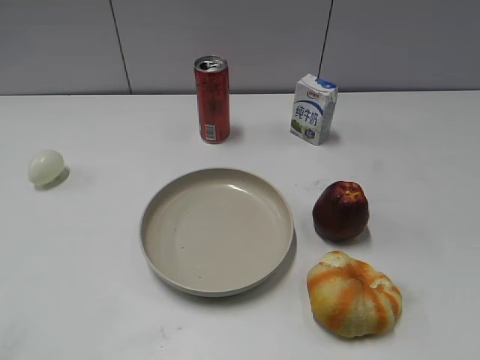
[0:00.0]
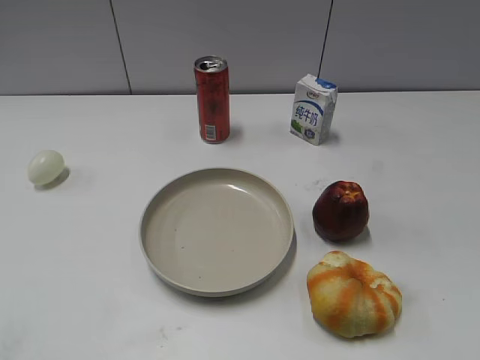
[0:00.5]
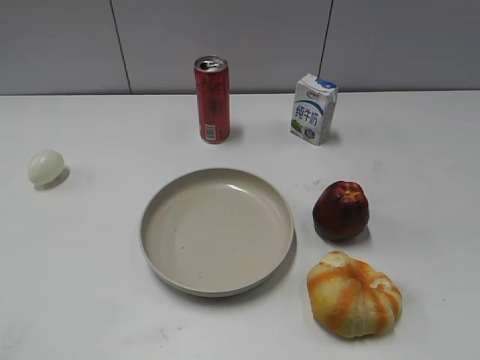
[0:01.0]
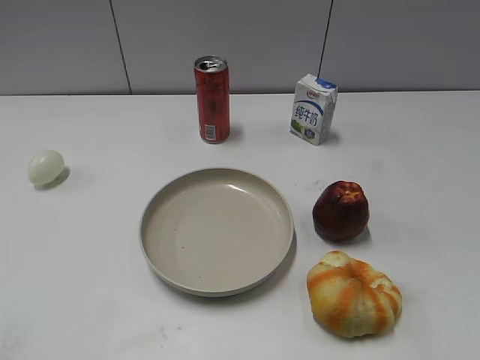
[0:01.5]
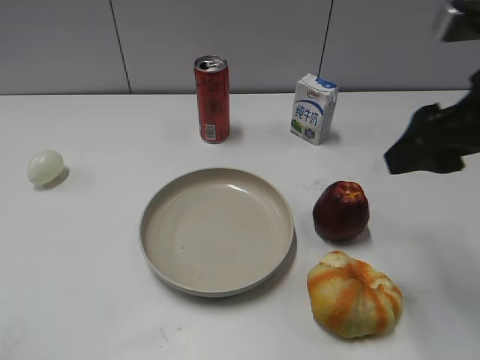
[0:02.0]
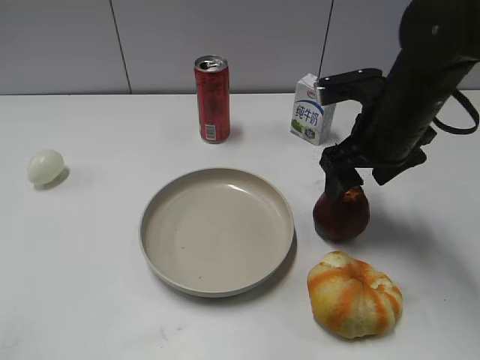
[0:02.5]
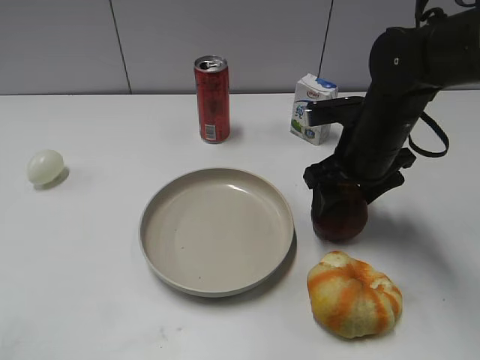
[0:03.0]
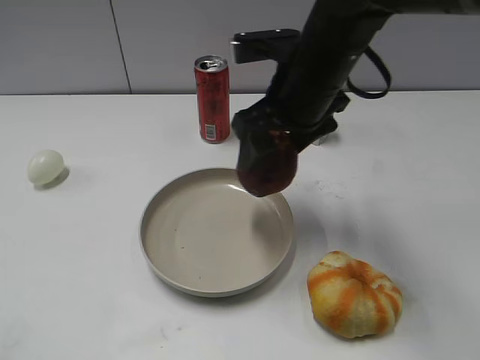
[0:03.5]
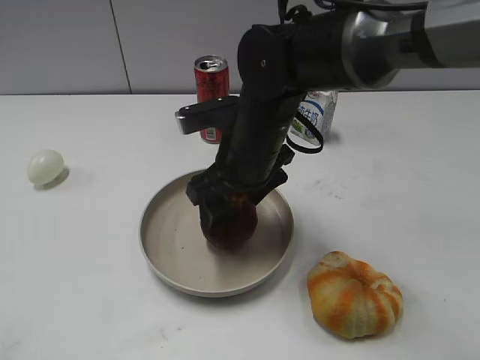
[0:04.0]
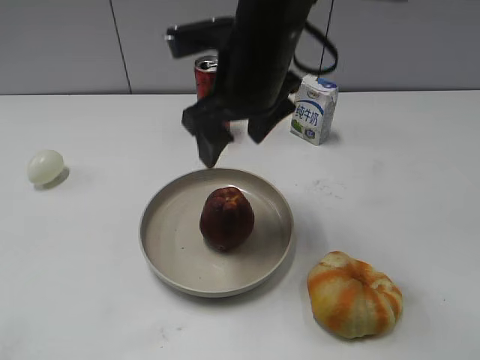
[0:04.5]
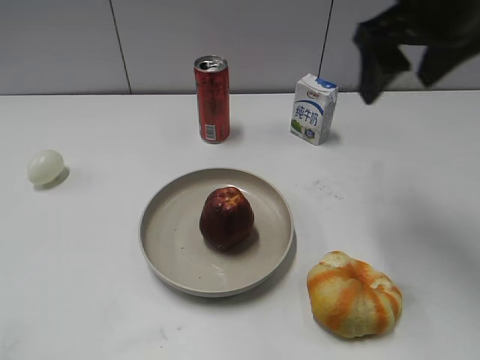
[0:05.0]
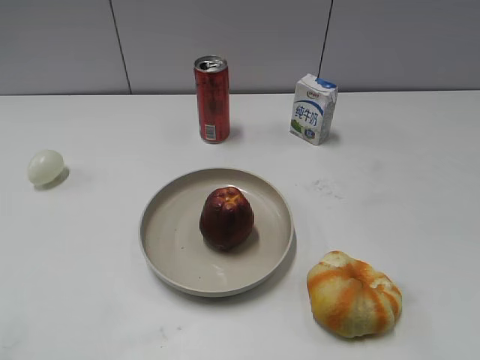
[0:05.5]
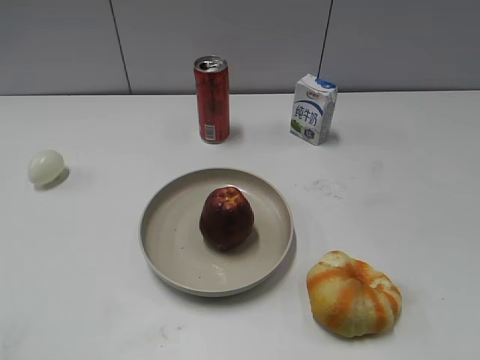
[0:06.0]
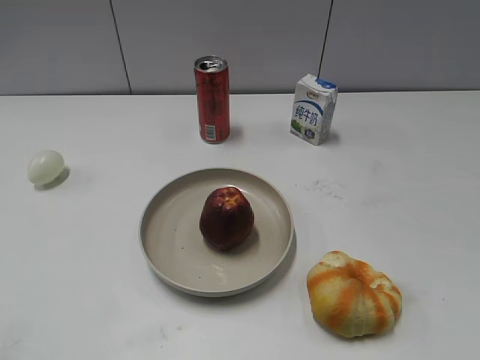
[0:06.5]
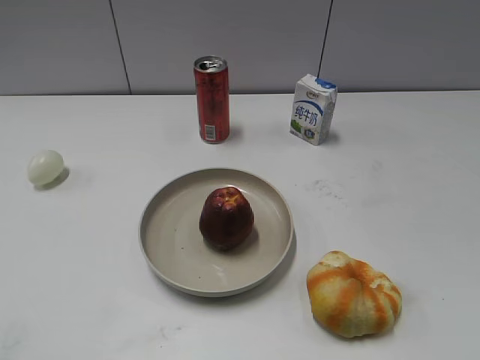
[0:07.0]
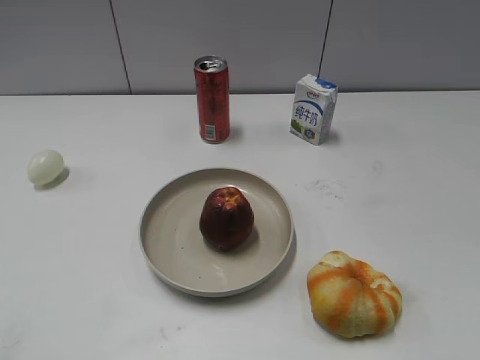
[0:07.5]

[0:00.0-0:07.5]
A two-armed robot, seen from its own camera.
Step, 0:01.5 to 0:02.5: Grasp the apple with right gripper.
Step, 0:03.5 to 0:04.0: Place the apple on the plate with right gripper.
0:02.0 to 0:04.0: The right gripper shifts some 30 cm to the left, downward and forward.
0:04.0 to 0:05.5: The right gripper travels to the right, backward and upward by some 35 cm.

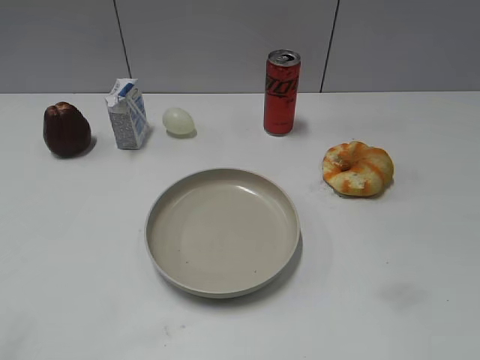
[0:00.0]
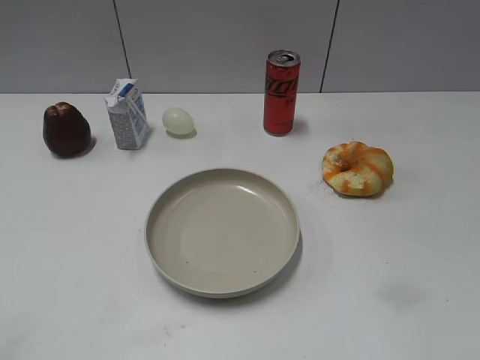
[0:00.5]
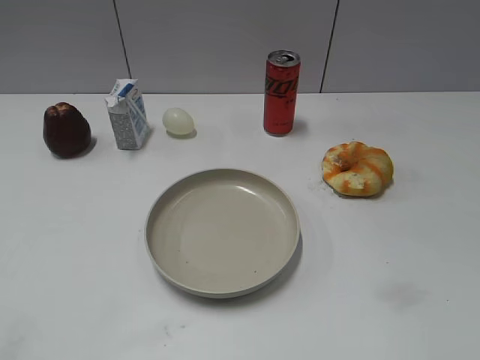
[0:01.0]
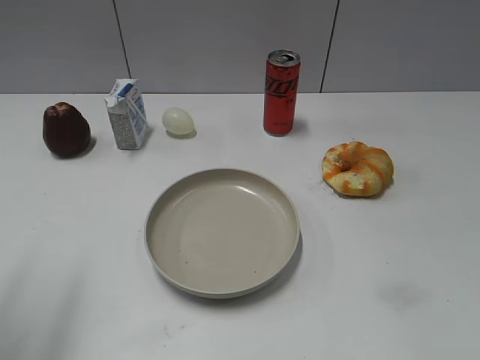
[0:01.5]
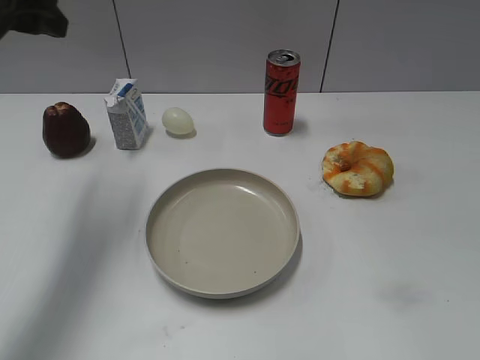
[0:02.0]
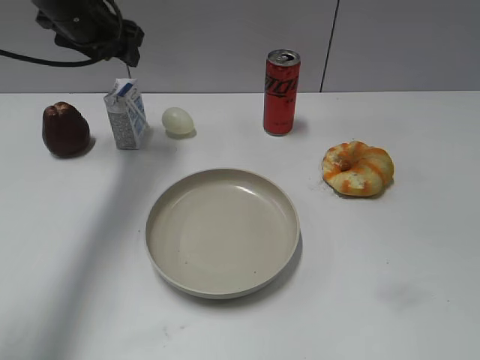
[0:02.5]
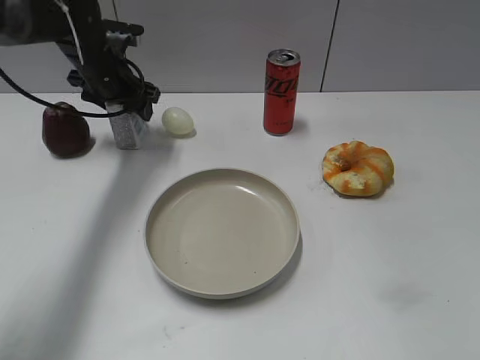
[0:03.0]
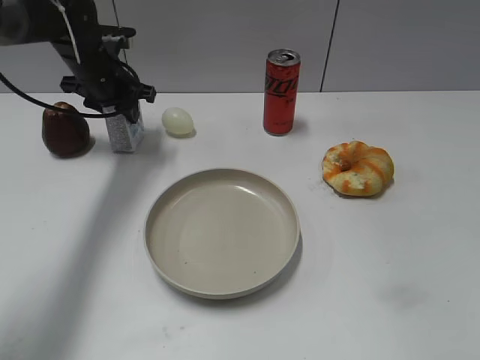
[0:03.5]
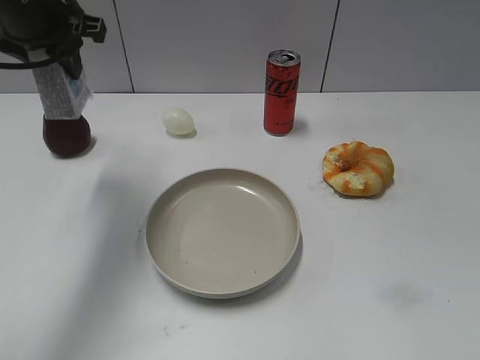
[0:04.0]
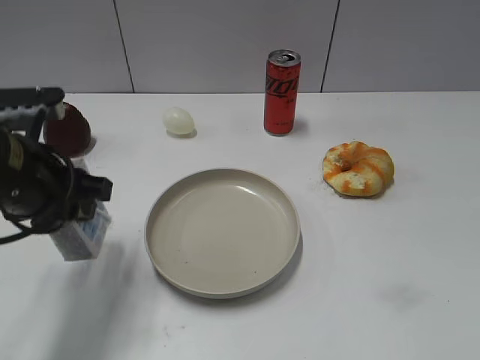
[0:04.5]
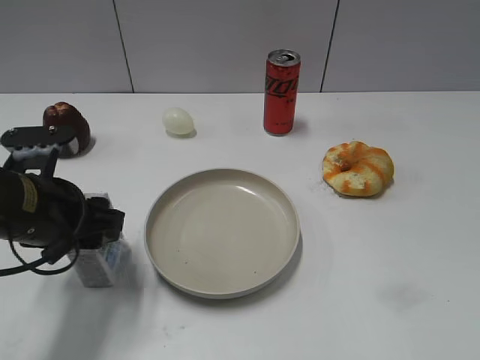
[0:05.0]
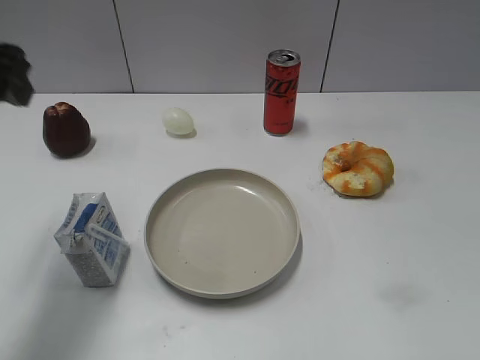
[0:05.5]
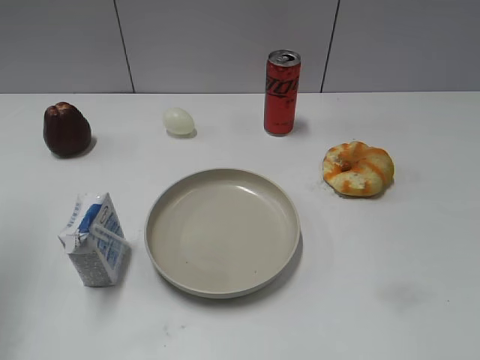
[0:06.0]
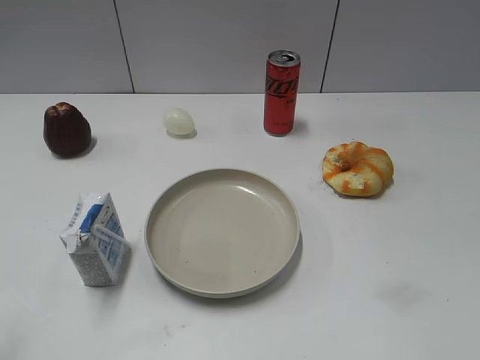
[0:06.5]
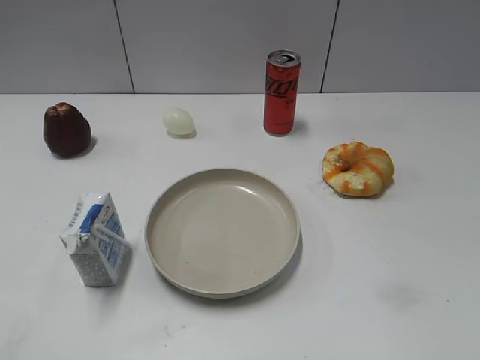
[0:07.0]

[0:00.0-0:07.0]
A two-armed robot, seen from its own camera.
Step, 0:01.0 to 0:03.0: Grasp the milk with left gripper.
Step, 0:04.0 to 0:05.0: Place the milk on the table with left gripper.
0:02.0 to 0:03.5: The left gripper travels downward and forward by about 20 cm, and closes its fingers.
0:03.5 to 0:05.0: The left gripper travels backward by some 25 cm, and opens up.
0:05.0 to 0:07.0: The left gripper moves backward, upward and to the left, about 30 cm.
